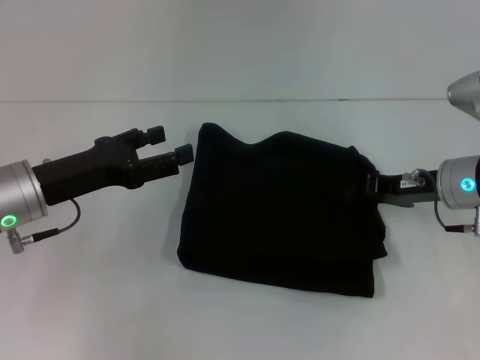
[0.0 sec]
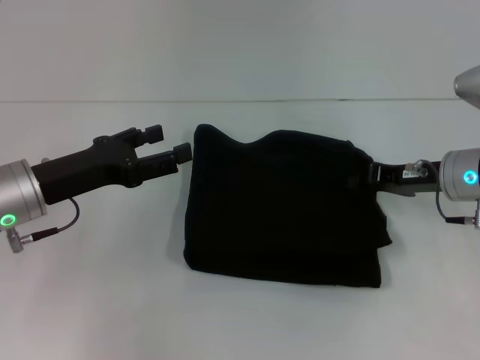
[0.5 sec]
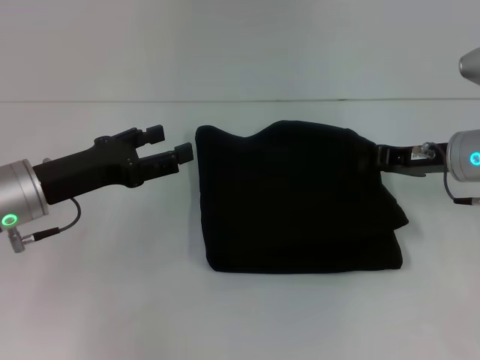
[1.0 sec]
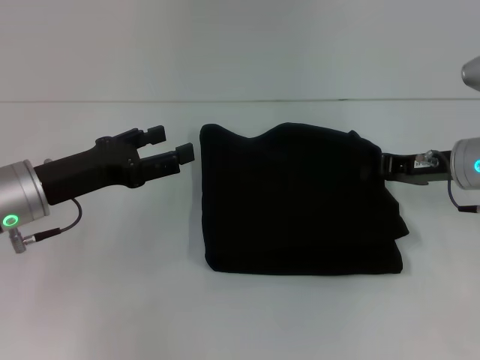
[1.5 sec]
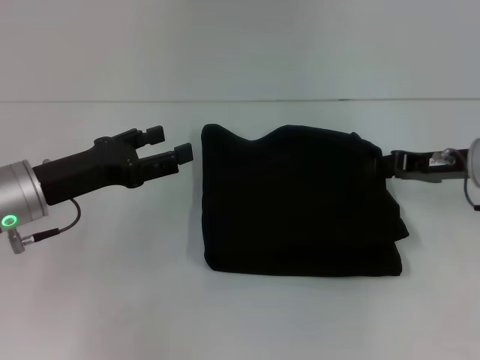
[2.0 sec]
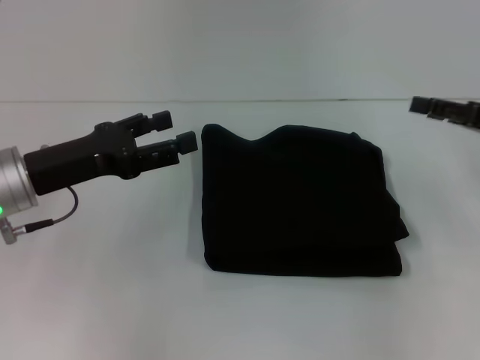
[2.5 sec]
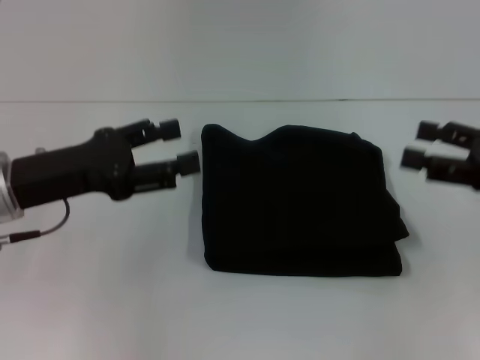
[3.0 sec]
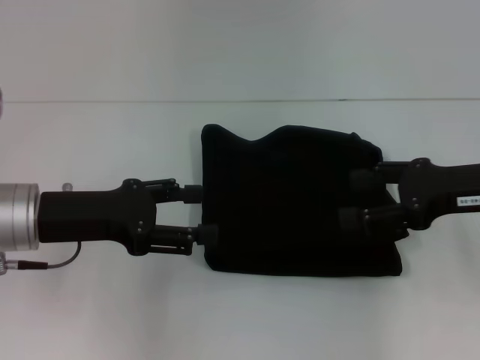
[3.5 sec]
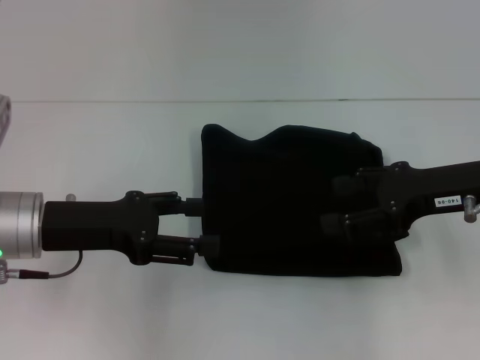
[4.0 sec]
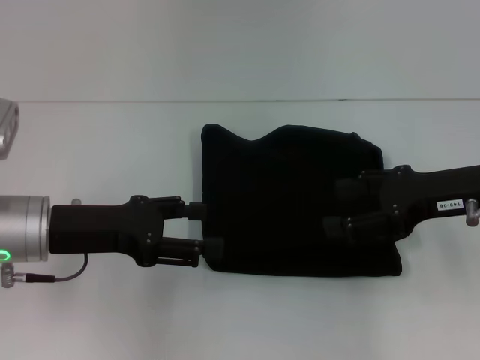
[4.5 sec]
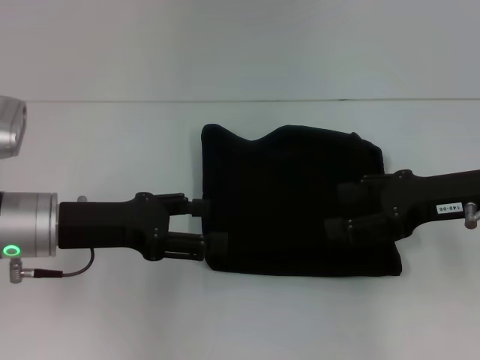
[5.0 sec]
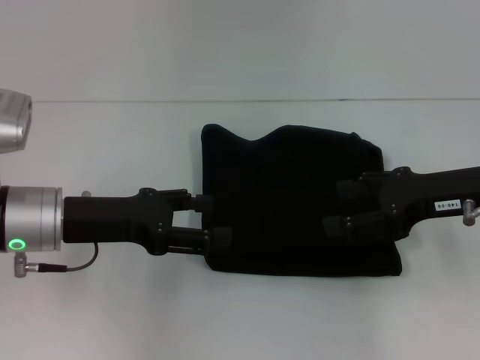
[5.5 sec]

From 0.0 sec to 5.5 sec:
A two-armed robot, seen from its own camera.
From 0.0 sec to 2.0 sec: The grippers move only a little.
From 2.0 sec to 3.5 sec: The right gripper is displaced backward and upward by approximately 10 cm, and opens its fingers.
From 3.5 sec to 5.5 sec: The grippers stay close to where they were, moving slightly.

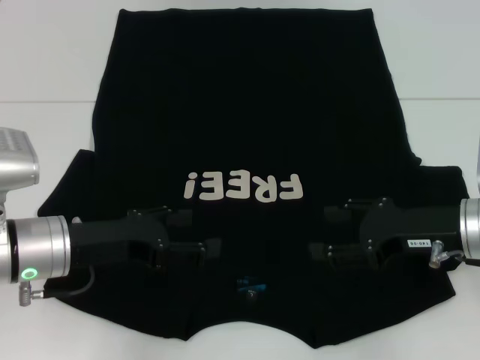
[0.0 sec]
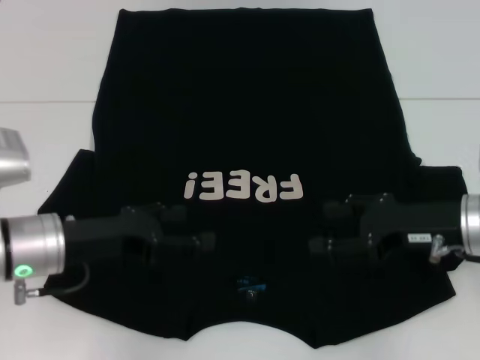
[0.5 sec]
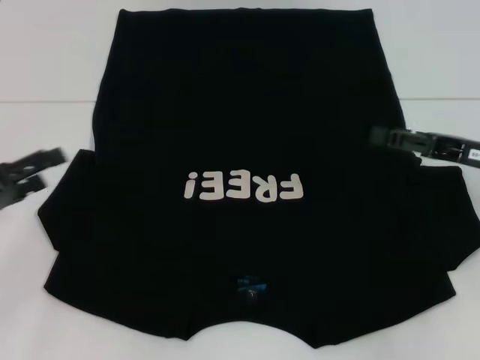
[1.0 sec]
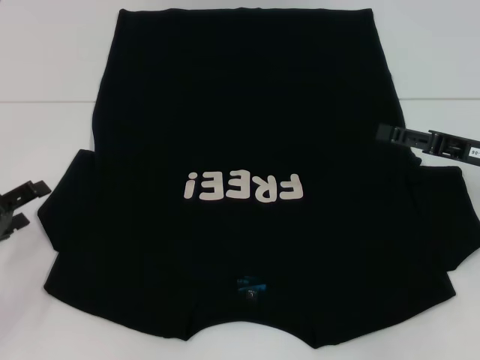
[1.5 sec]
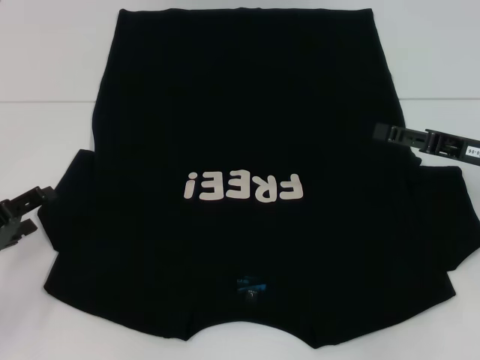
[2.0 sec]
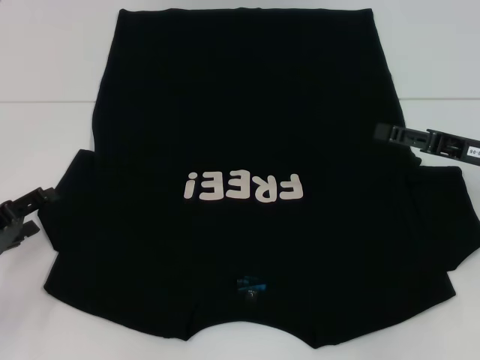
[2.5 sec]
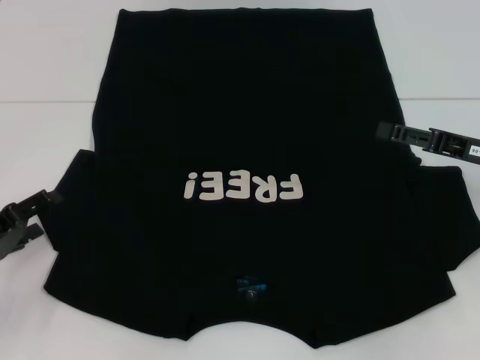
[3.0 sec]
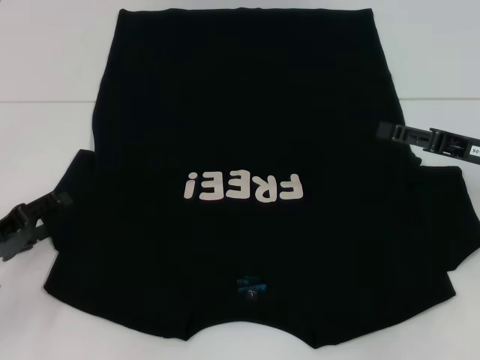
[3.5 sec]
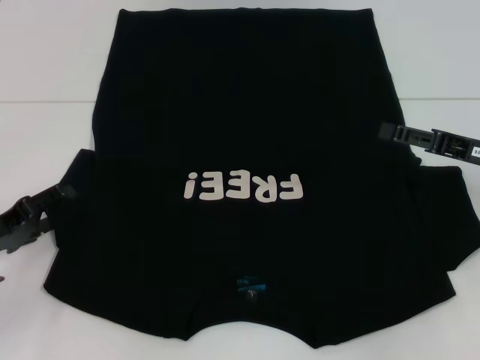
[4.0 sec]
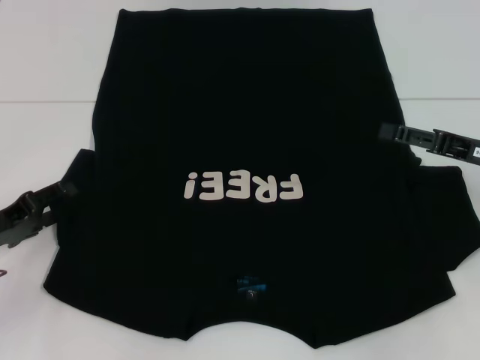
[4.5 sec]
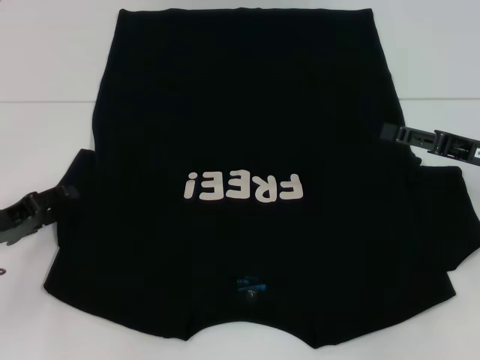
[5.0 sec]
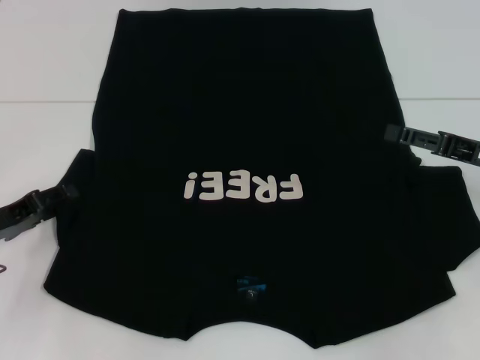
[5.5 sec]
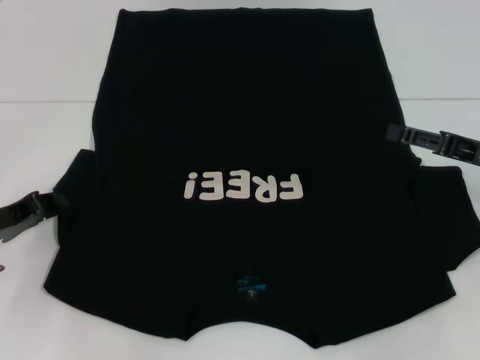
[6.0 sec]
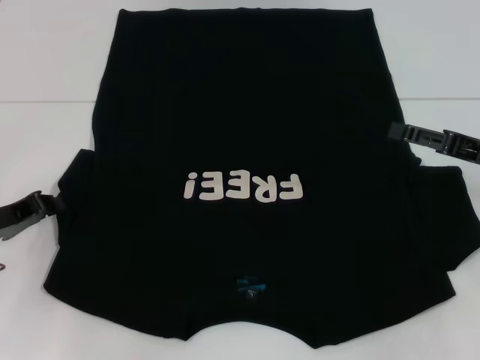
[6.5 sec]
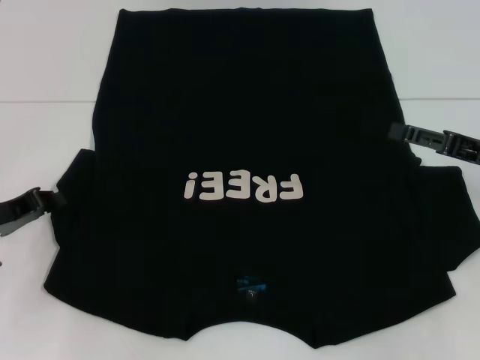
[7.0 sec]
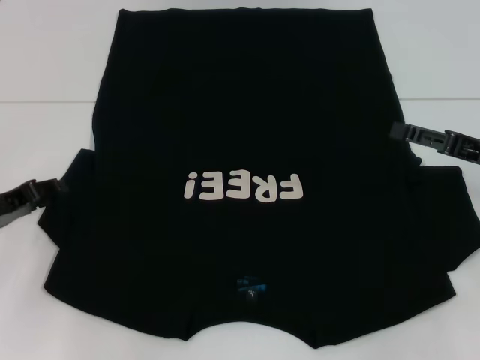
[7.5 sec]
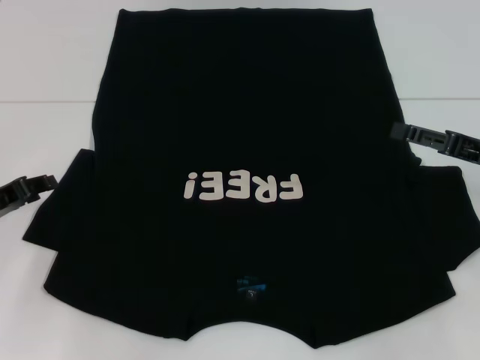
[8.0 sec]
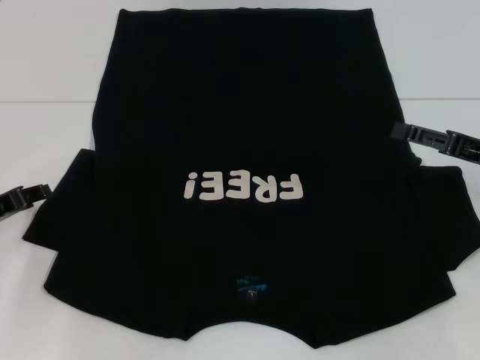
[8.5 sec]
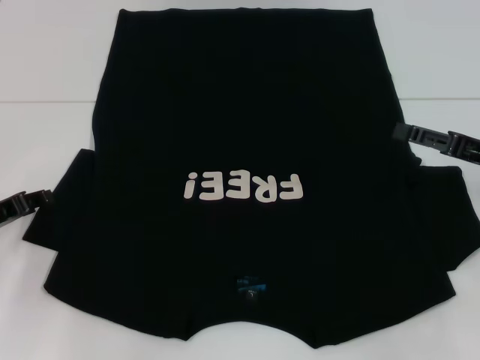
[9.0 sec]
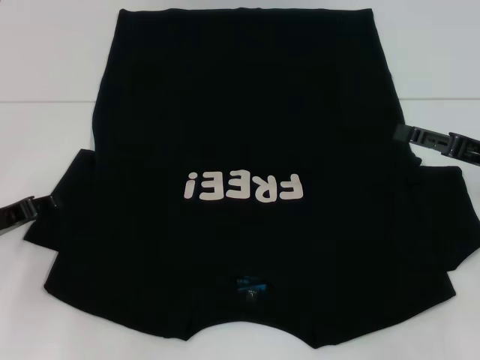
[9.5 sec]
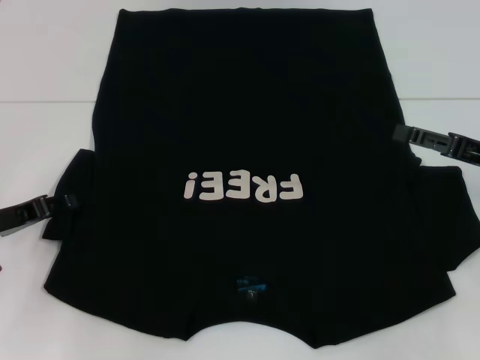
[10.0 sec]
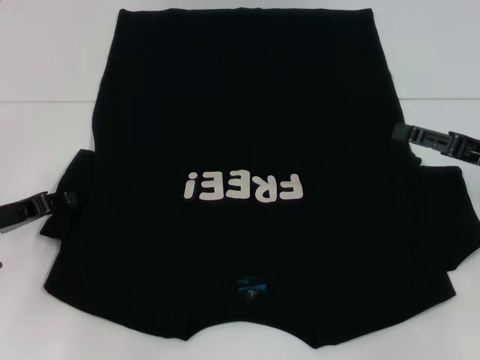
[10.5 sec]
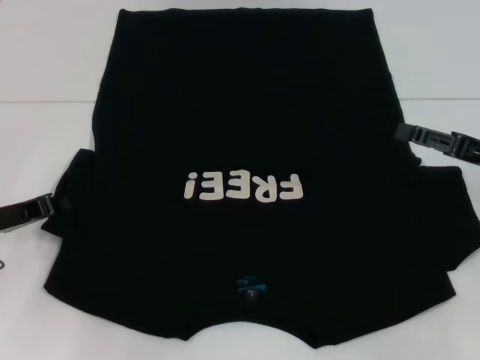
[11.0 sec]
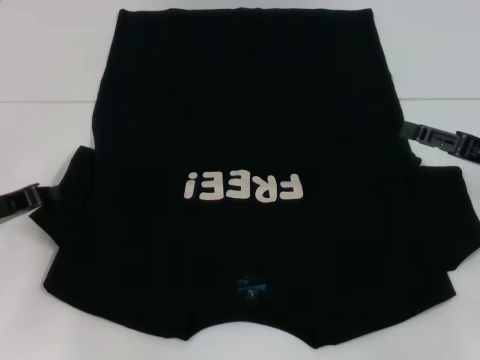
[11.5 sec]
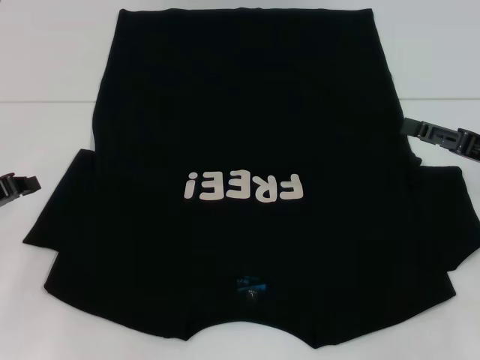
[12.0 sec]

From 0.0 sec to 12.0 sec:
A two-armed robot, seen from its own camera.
From 0.0 sec to 2.0 sec: The left gripper shifts approximately 10 cm to the left. Meanwhile the right gripper shifts about 5 cm to the right.
From 2.0 sec to 4.0 sec: The grippers make only small movements.
From 4.0 sec to 6.0 sec: The left gripper closes.
From 6.0 sec to 8.0 sec: The left gripper closes, then opens again.
From 8.0 sec to 10.0 sec: There are only small adjustments of the grippers.
From 10.0 sec to 12.0 sec: The left gripper closes up.

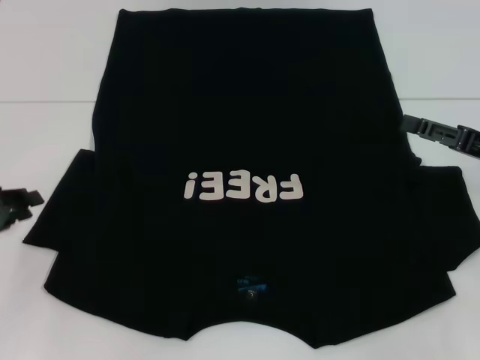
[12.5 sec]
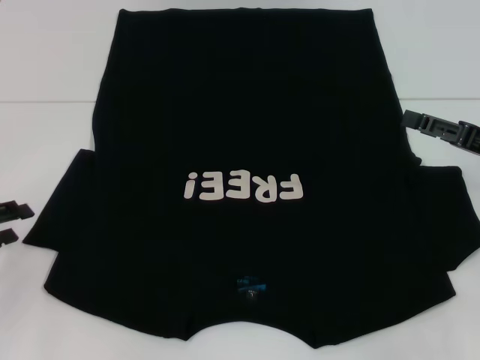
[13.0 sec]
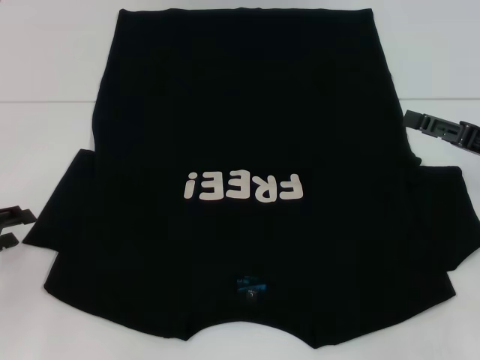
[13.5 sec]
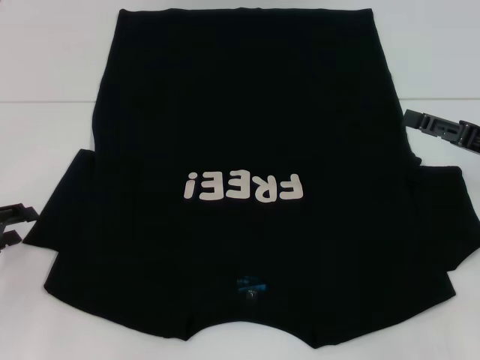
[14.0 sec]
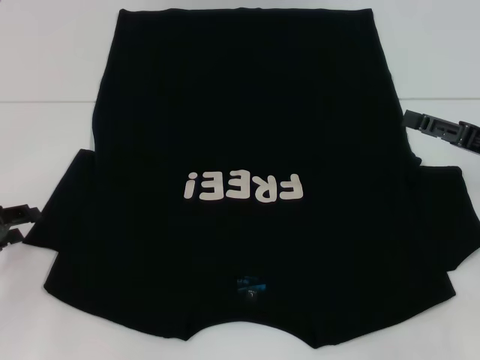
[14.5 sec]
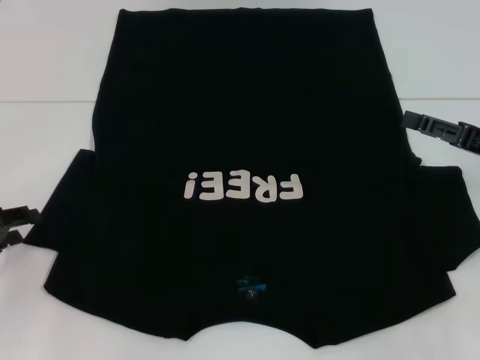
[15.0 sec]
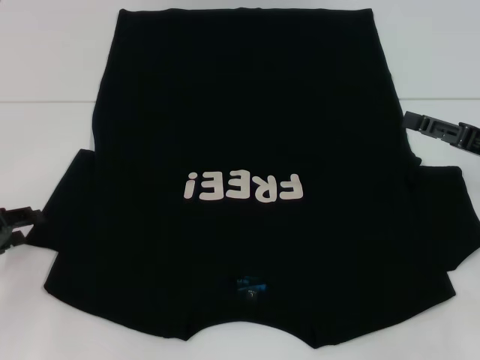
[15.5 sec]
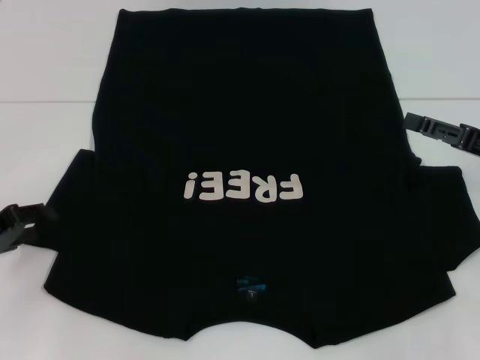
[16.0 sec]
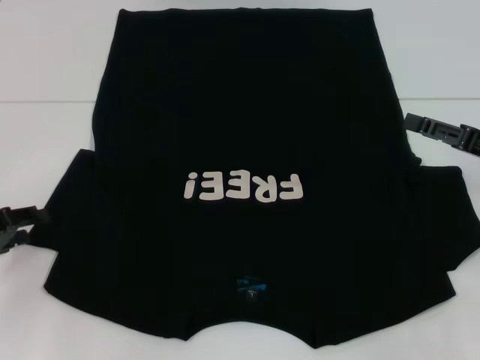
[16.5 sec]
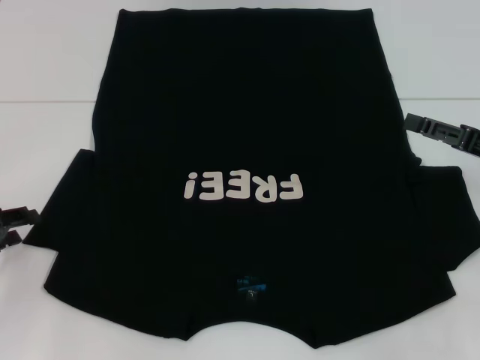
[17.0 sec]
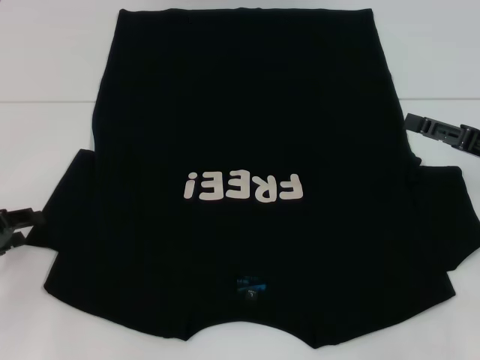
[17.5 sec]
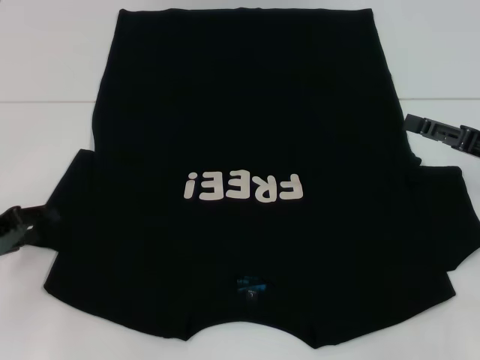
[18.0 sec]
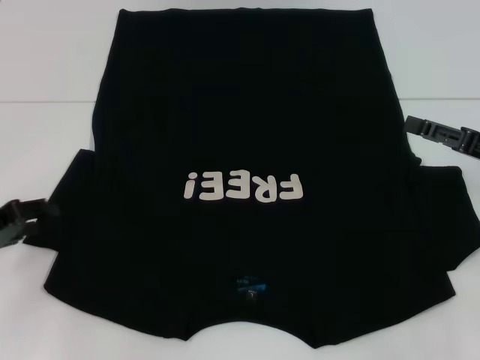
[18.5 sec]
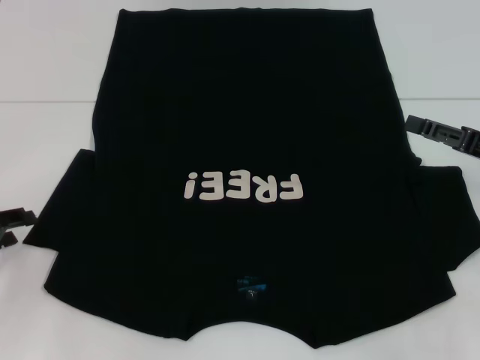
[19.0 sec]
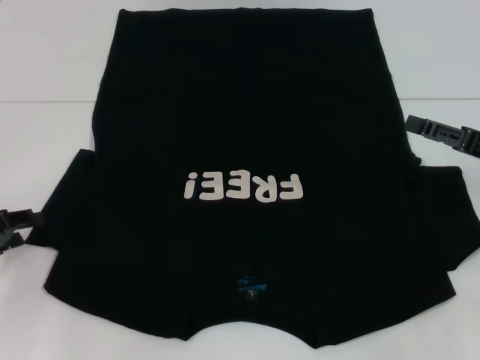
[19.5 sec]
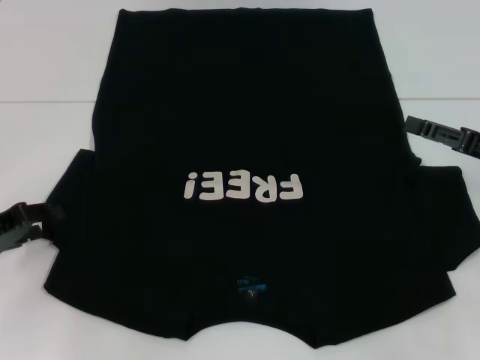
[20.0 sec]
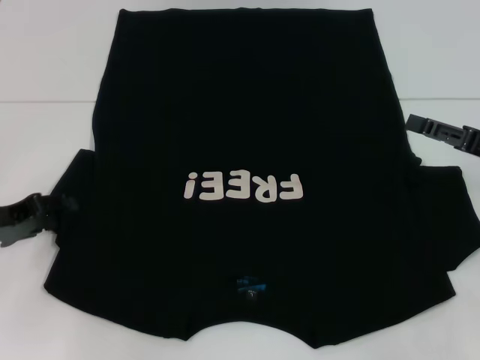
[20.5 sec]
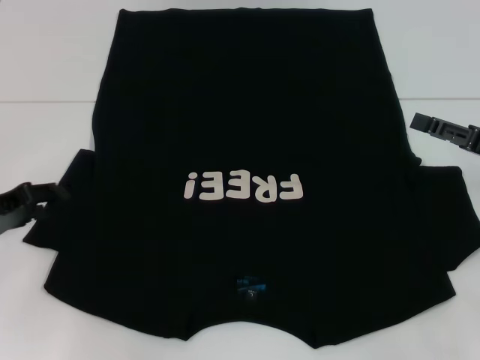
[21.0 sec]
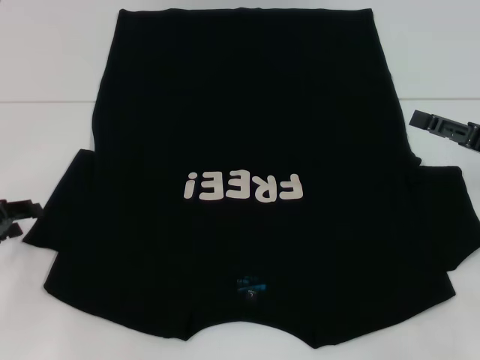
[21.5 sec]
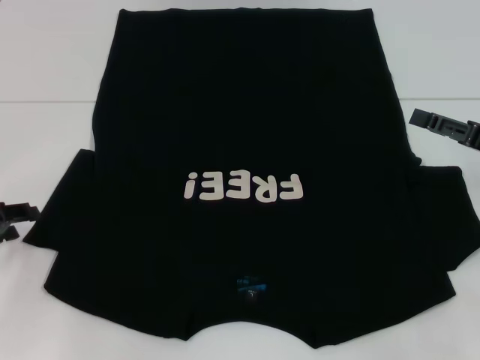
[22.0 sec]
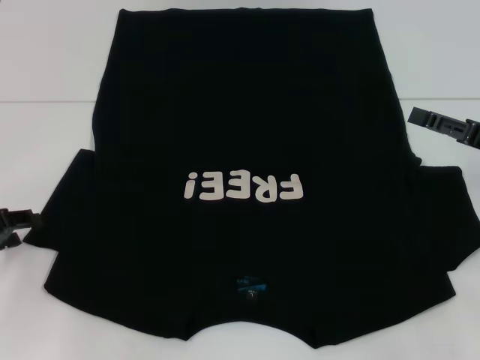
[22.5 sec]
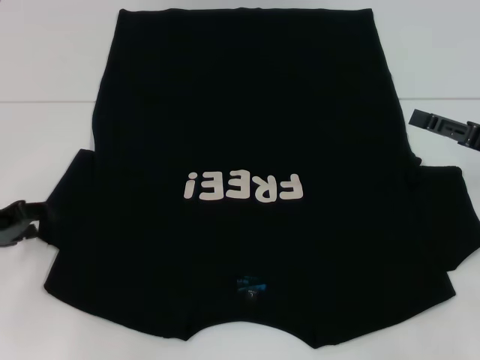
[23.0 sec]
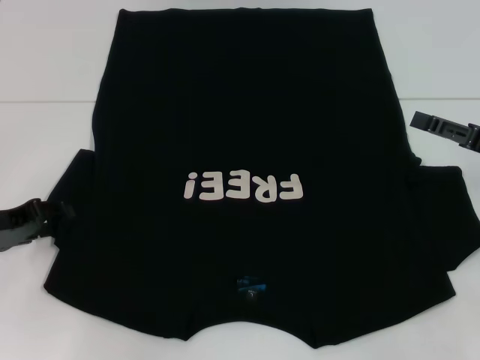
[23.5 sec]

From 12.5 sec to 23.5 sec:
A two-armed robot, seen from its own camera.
From 12.5 sec to 14.5 sec: The left gripper opens.
From 14.5 sec to 16.0 sec: Both grippers stay put.
From 16.0 sec to 18.0 sec: Both grippers stay about where they are.
From 18.0 sec to 23.5 sec: The grippers stay close to where they were, moving slightly.
